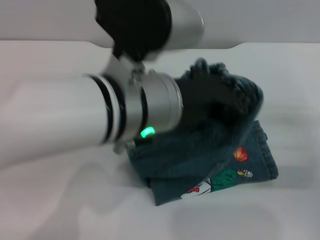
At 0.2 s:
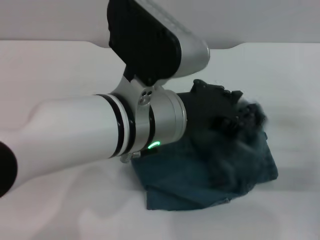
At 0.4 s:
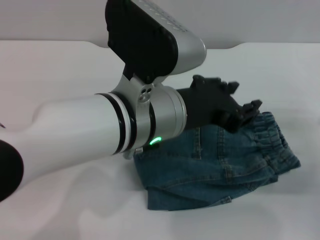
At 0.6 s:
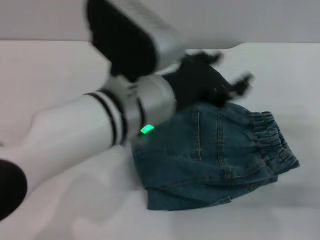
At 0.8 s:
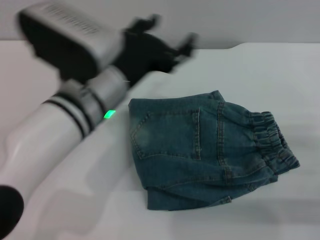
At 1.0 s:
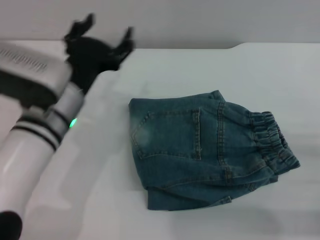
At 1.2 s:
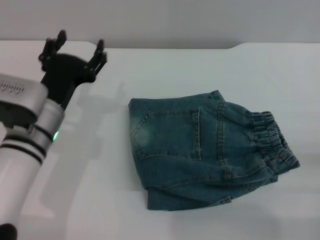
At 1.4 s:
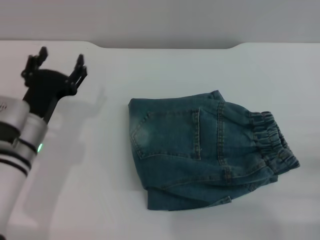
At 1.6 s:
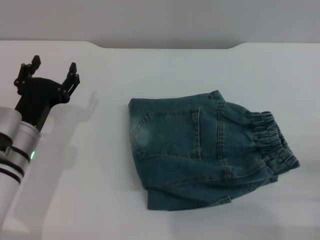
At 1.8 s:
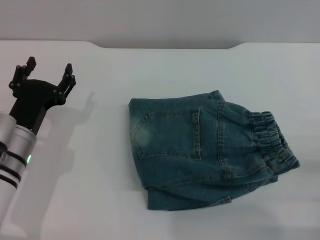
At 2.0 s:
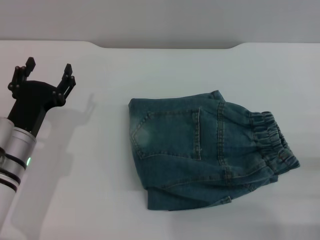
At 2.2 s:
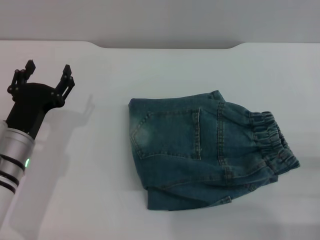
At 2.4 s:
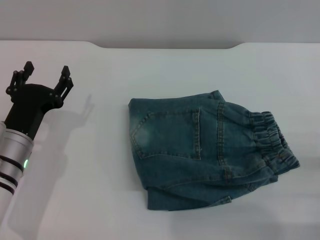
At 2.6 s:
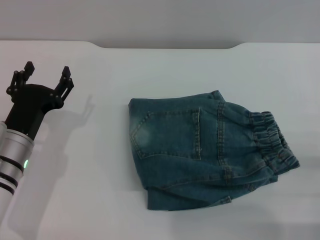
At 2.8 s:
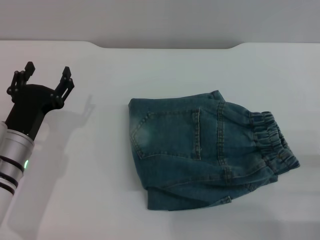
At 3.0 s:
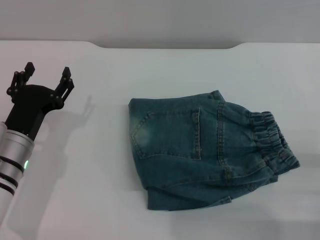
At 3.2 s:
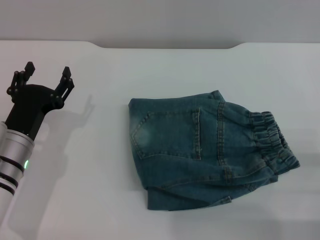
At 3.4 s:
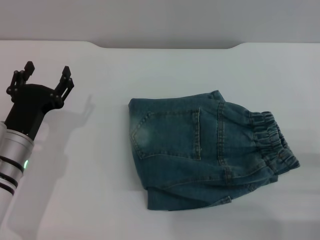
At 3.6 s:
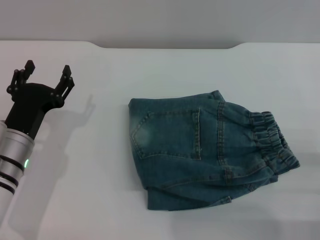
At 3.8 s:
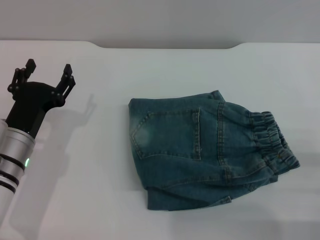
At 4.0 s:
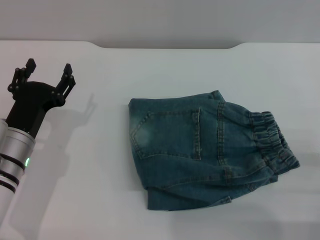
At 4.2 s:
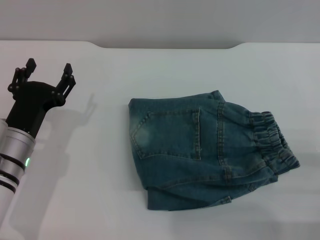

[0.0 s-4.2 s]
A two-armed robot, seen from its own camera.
0.0 to 1.4 s: The right gripper travels backward by some 10 cm, and opens up. The left gripper shifts about 25 cm downward and to the left, and opens its fingers.
2.8 to 4.2 s: Neither gripper changes place.
